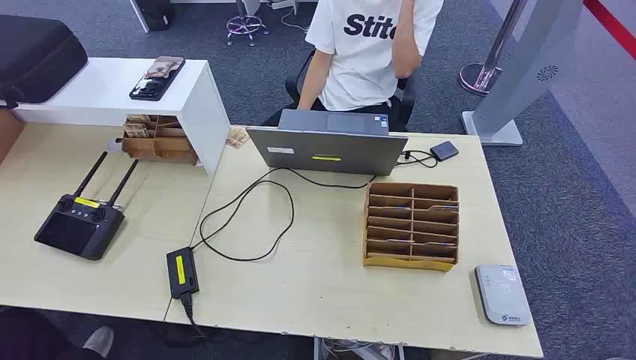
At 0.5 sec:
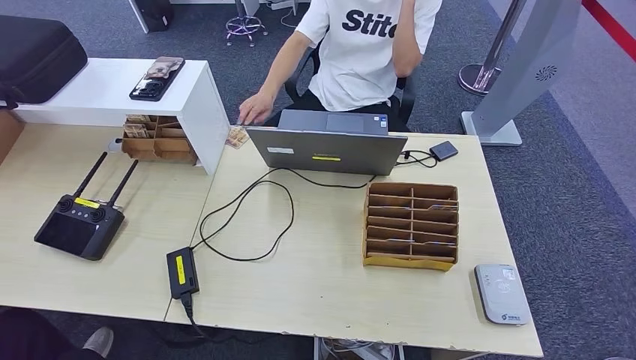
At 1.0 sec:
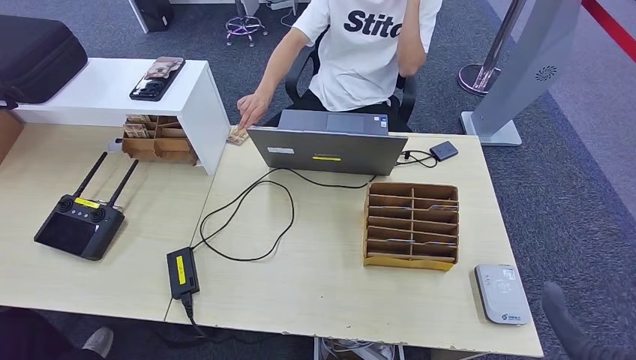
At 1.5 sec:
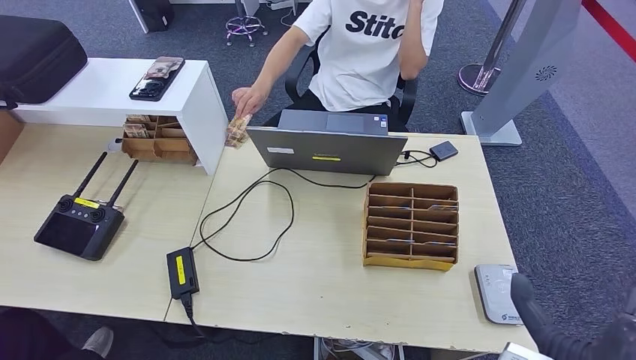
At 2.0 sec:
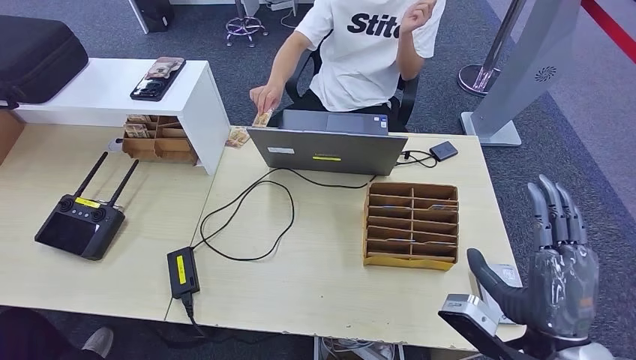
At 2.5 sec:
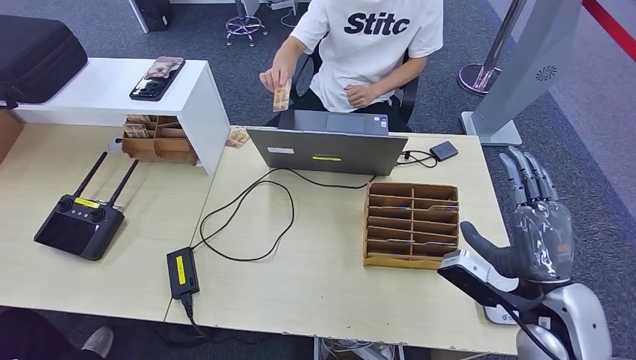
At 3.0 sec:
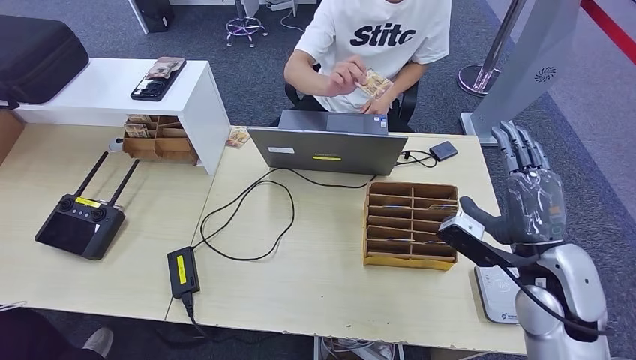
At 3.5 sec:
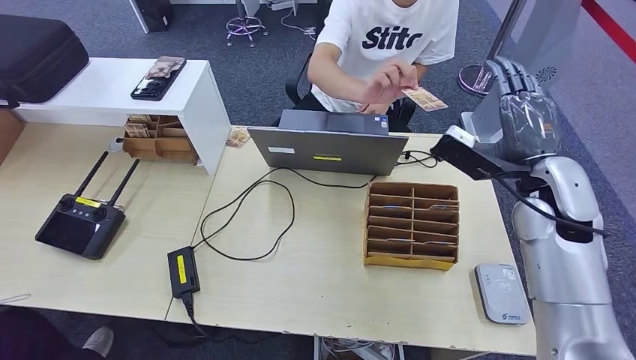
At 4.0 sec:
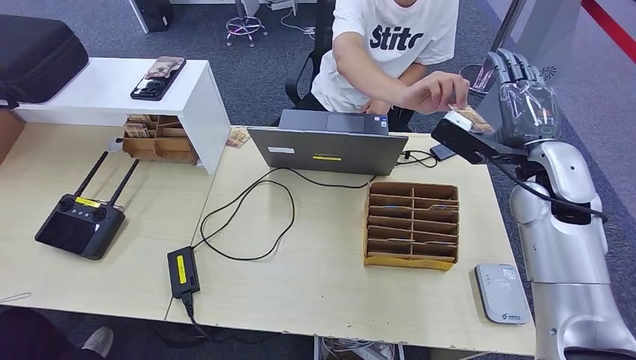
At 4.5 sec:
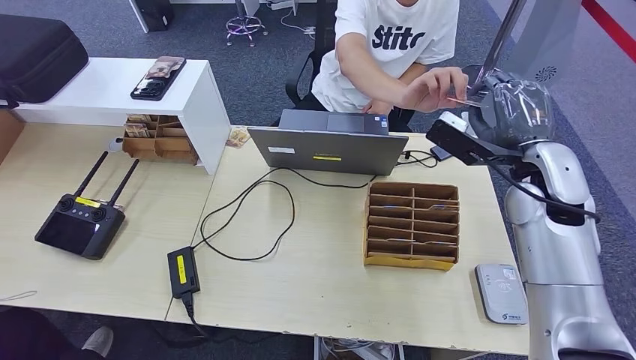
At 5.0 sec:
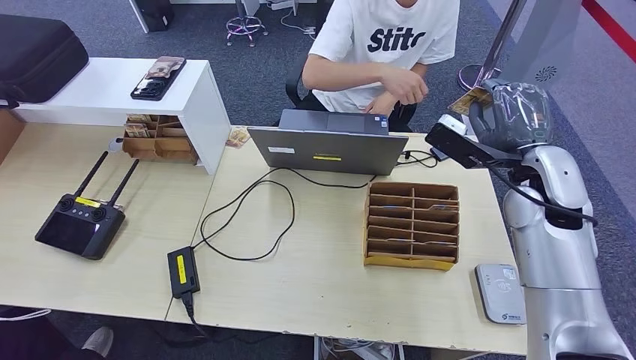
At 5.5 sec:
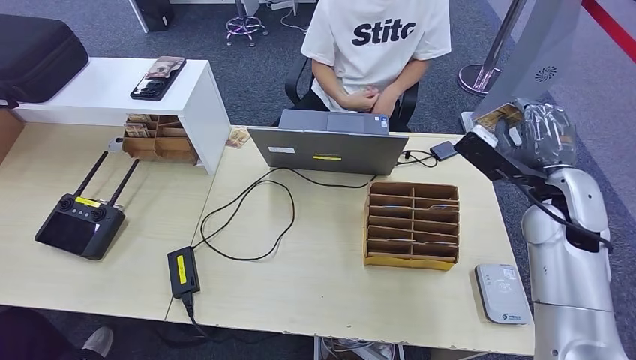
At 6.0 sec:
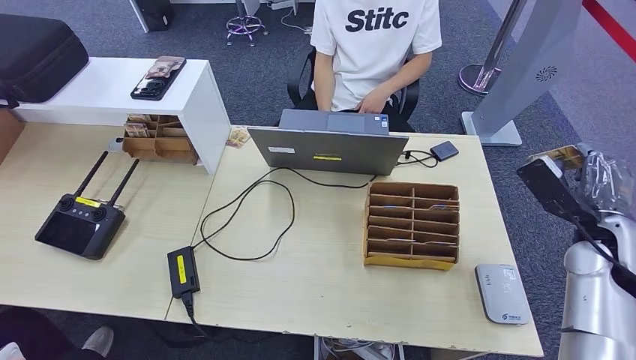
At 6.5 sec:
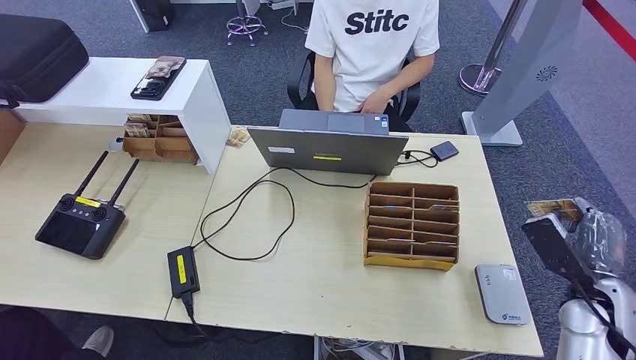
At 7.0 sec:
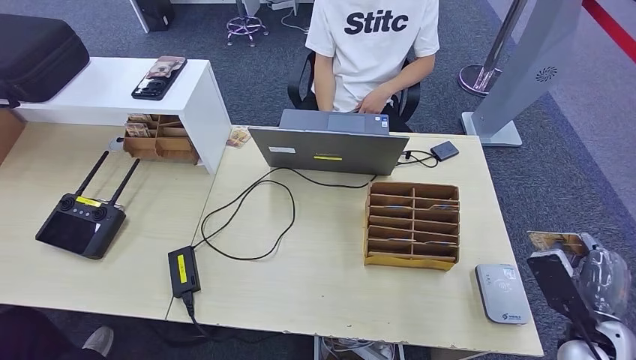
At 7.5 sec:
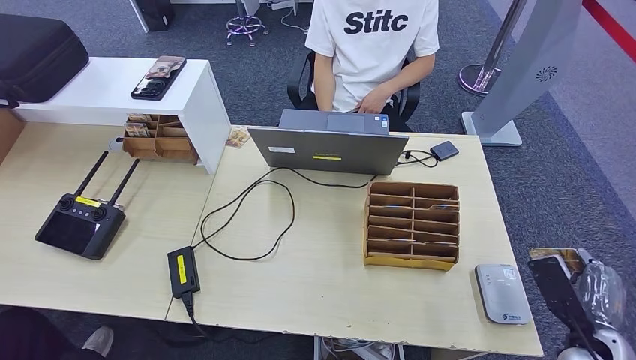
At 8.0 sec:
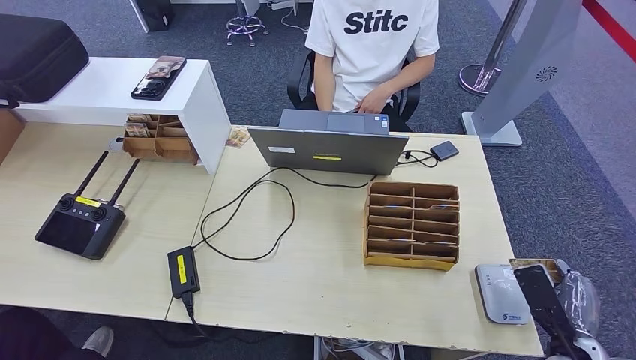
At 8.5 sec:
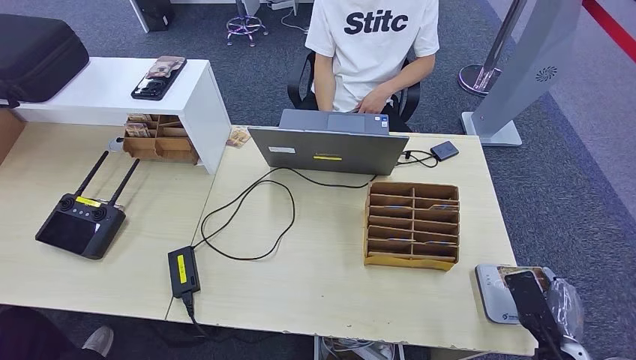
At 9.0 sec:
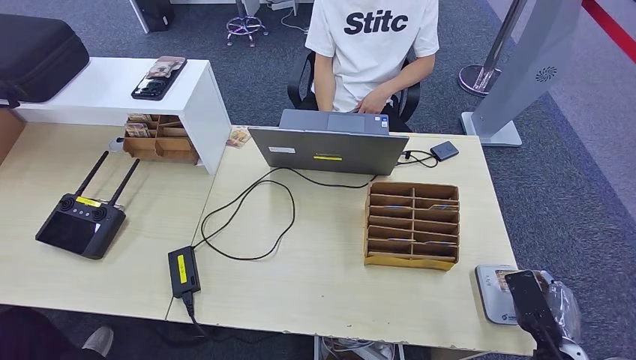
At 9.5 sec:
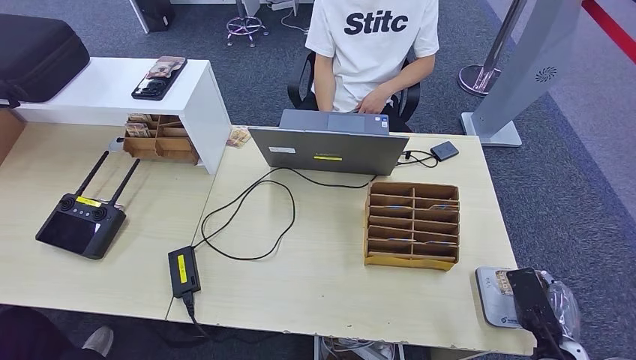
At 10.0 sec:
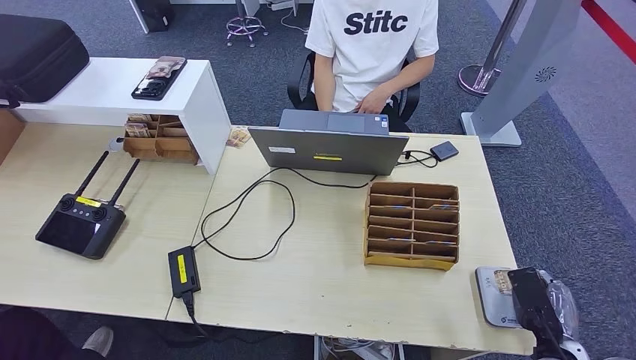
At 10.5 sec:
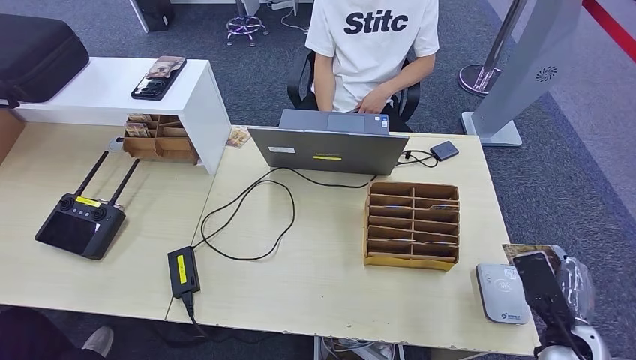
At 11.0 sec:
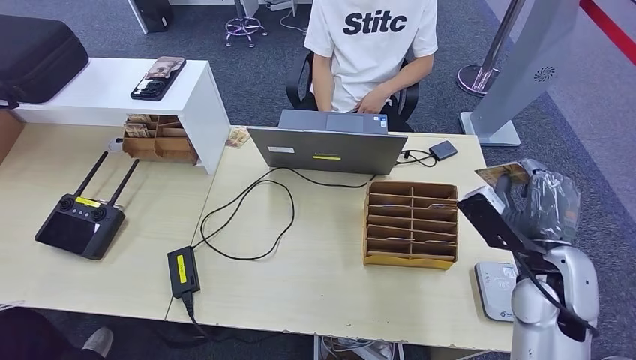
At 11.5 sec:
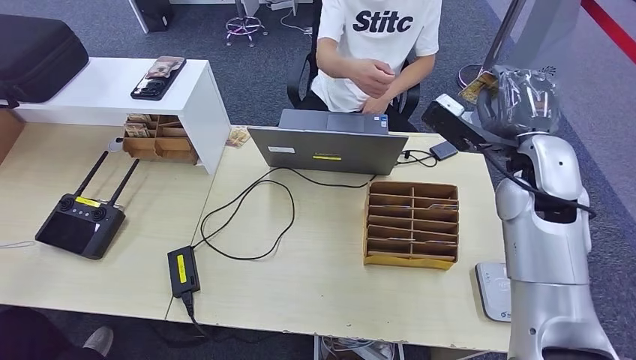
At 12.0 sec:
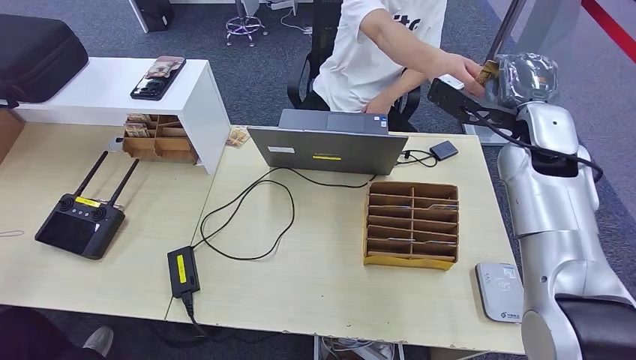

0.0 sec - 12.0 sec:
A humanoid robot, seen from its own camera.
Step, 0.0 sec - 6.5 sec: Take the ID card from the person's hand.
Step, 7.0 sec - 11.5 sec: Place the ID card on the card reader.
2.0 sec - 4.0 sec: The right hand heads forward, covering approximately 25 cm.
4.0 sec - 6.0 sec: The right hand shifts about 15 cm to the right, downward and backward.
6.0 sec - 8.0 sec: The right hand shifts roughly 20 cm backward and downward.
8.0 sec - 10.0 sec: The hands stay close to where they were, moving slightly.
10.0 sec - 12.0 sec: The right hand travels upward and forward by approximately 40 cm.

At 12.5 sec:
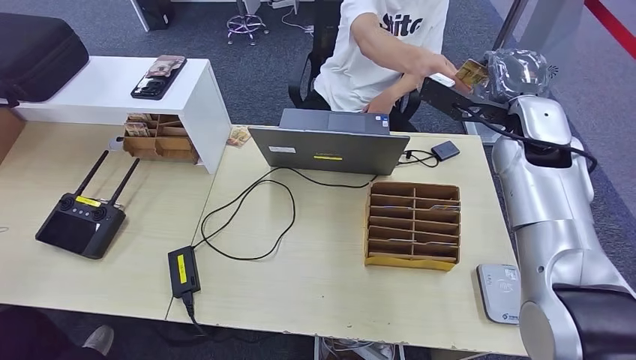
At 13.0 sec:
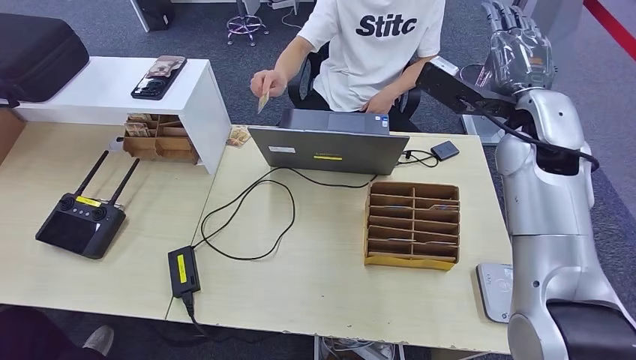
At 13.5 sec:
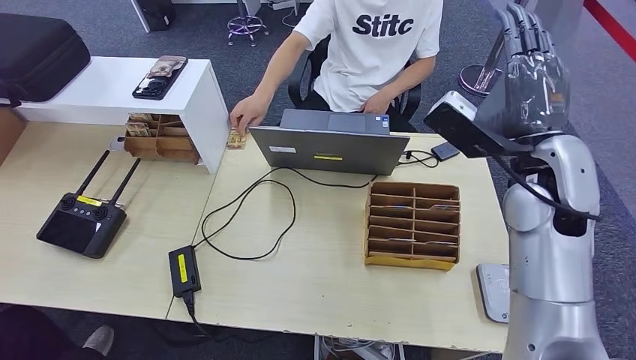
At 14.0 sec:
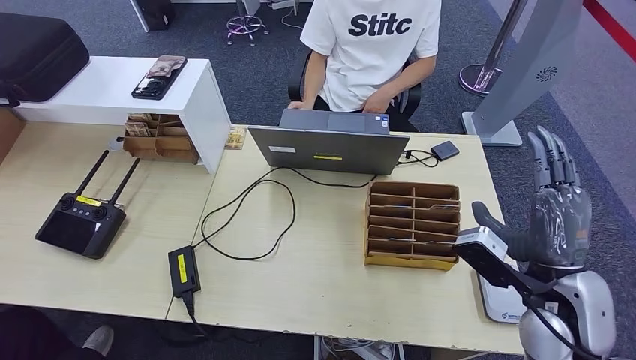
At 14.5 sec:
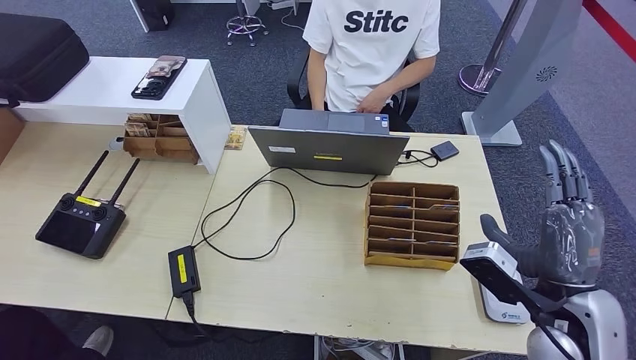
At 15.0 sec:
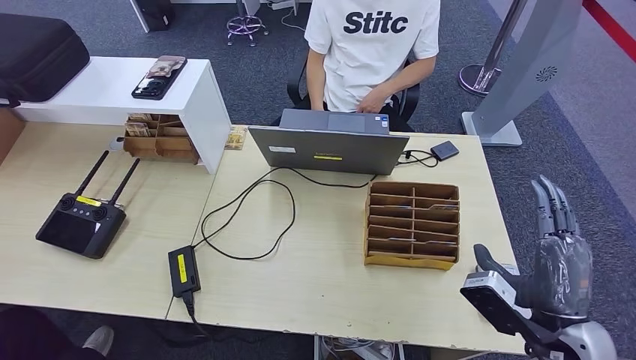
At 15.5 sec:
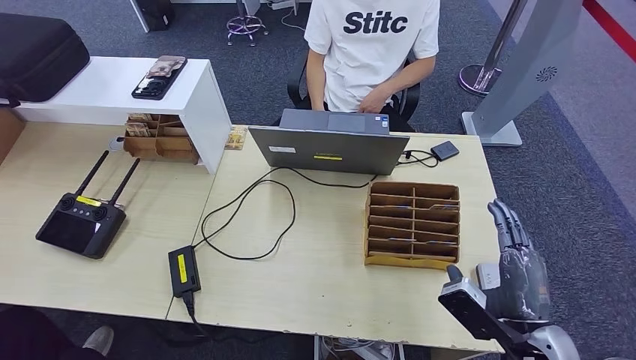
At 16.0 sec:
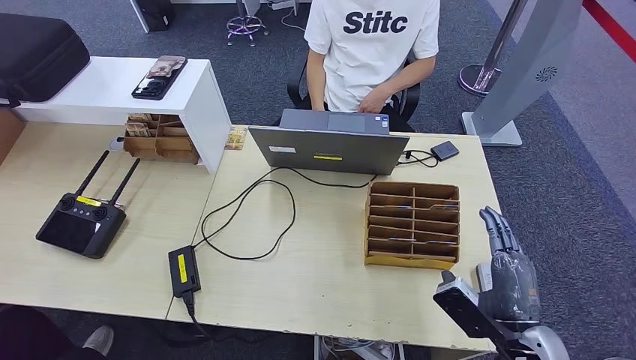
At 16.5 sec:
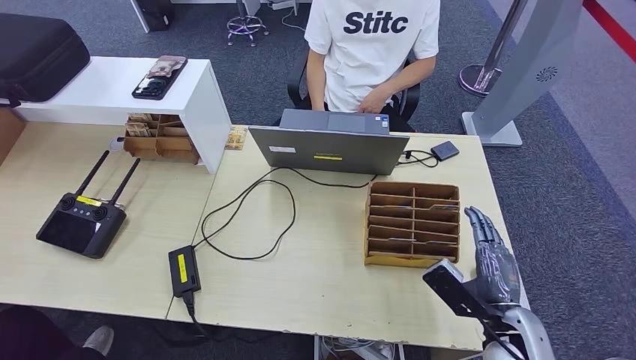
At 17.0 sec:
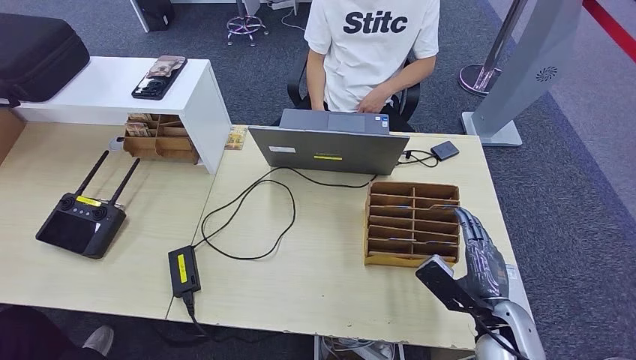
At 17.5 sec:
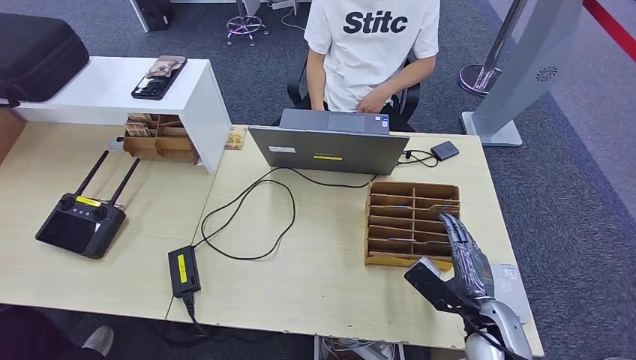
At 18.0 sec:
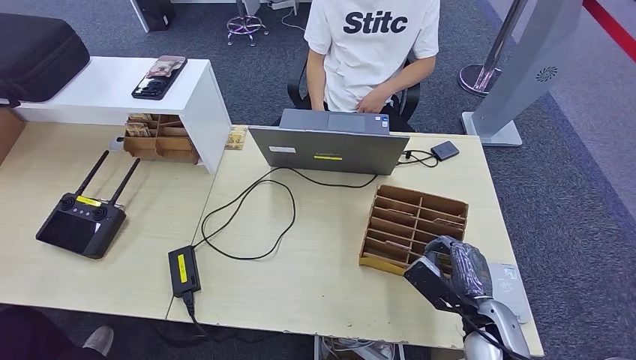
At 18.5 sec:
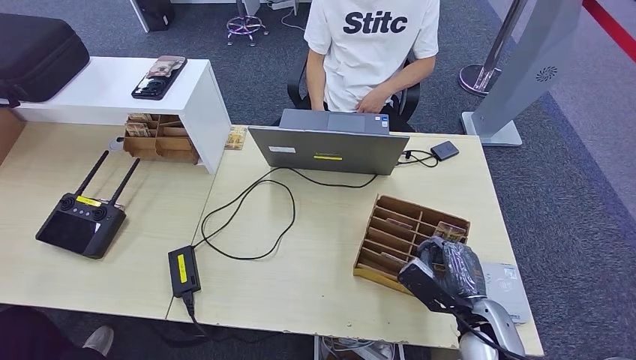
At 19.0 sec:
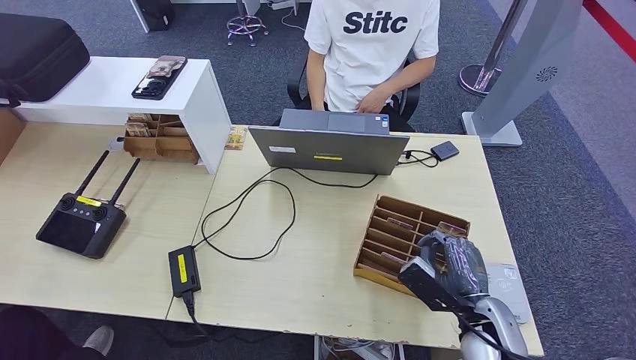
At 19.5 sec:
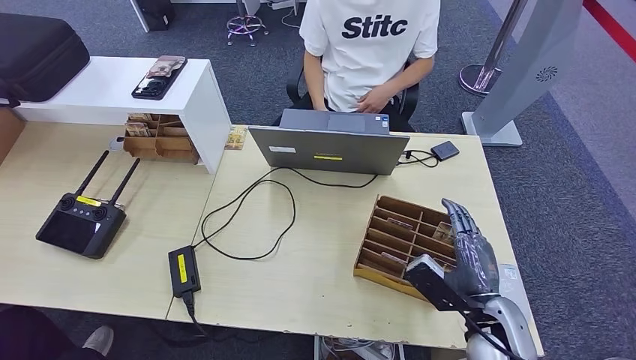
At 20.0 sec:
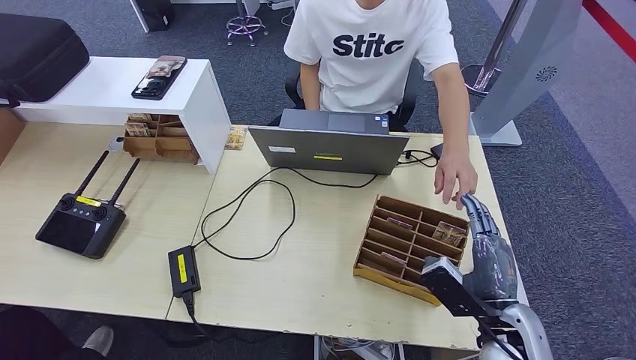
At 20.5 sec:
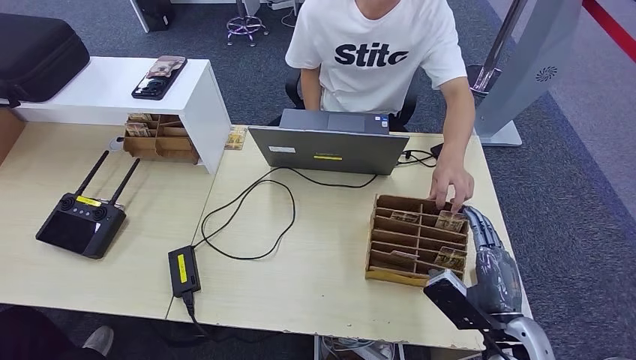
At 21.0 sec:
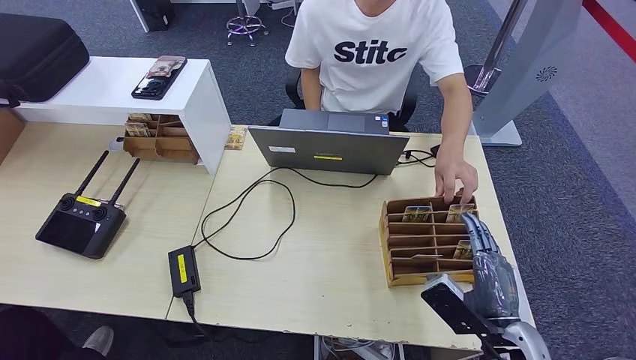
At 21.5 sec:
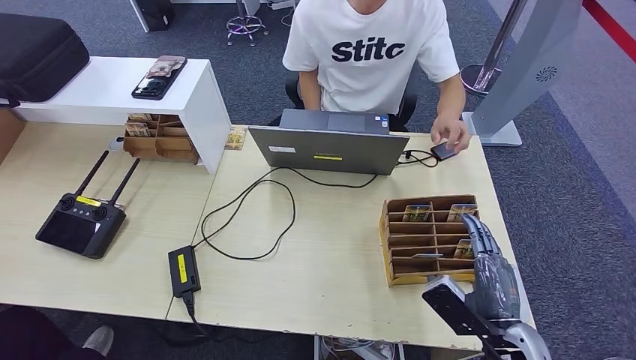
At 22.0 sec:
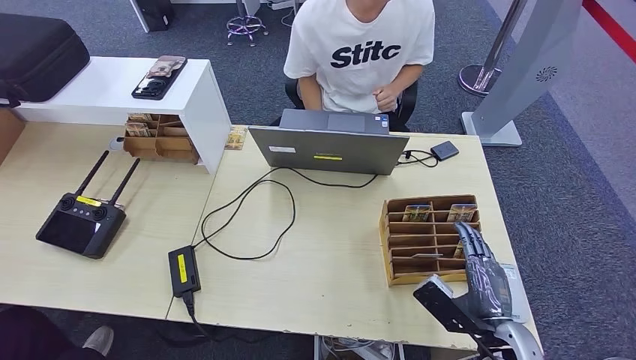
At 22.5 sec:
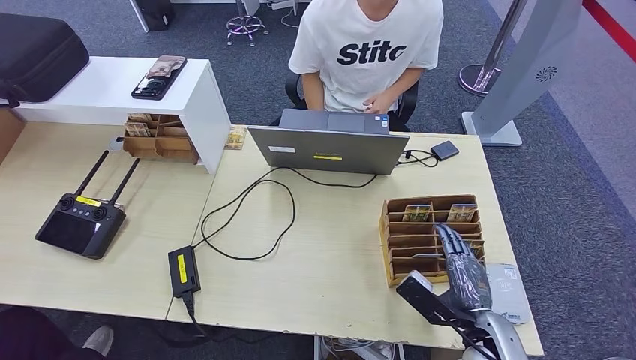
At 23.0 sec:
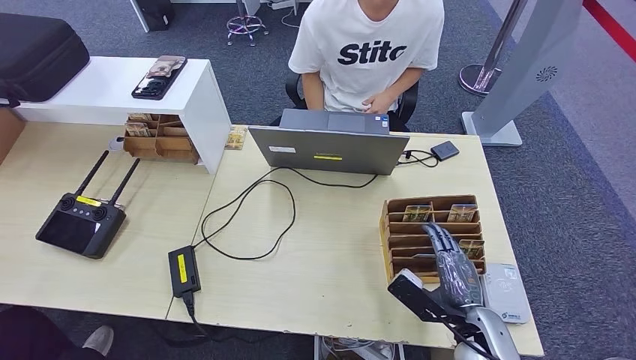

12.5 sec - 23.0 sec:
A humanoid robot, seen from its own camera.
Step, 12.5 sec - 15.0 sec: Hand the ID card to the person.
12.5 sec - 14.5 sec: The right hand heads backward and downward, covering roughly 25 cm.
14.5 sec - 16.5 sec: The right hand shifts about 10 cm downward.
16.5 sec - 21.0 sec: The hands make only small movements.
21.0 sec - 23.0 sec: The right hand ends up approximately 5 cm from where it was.
